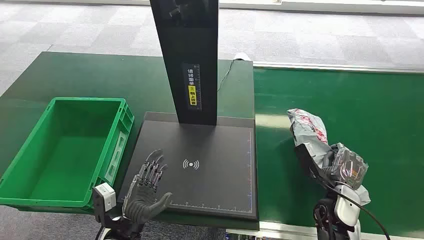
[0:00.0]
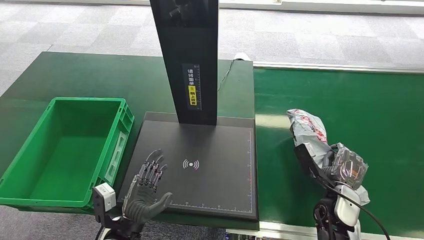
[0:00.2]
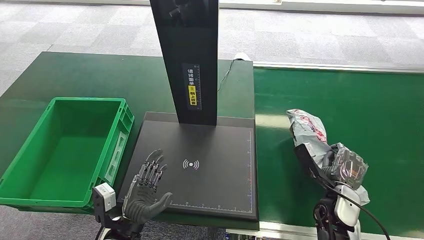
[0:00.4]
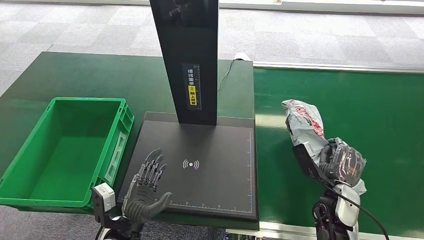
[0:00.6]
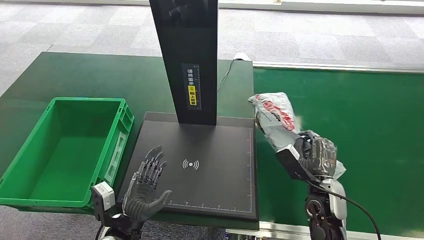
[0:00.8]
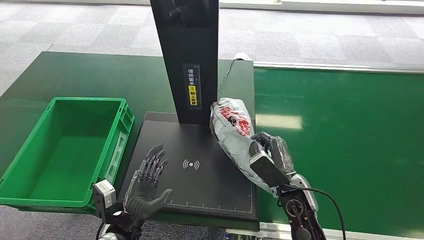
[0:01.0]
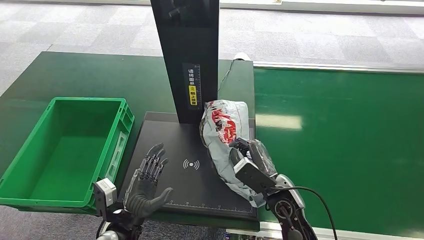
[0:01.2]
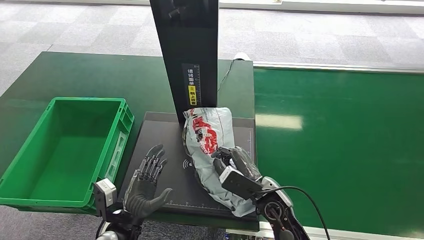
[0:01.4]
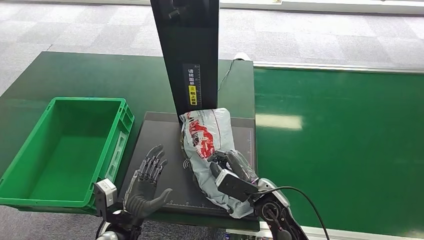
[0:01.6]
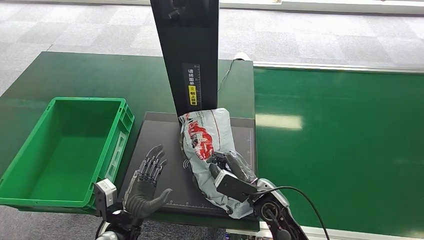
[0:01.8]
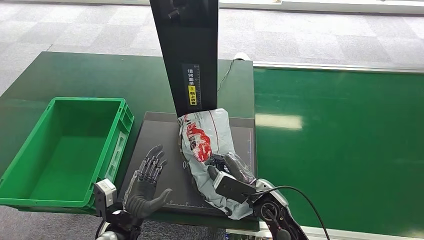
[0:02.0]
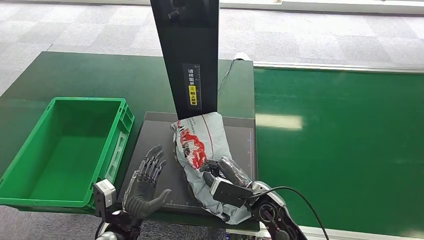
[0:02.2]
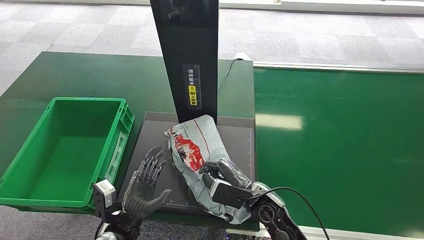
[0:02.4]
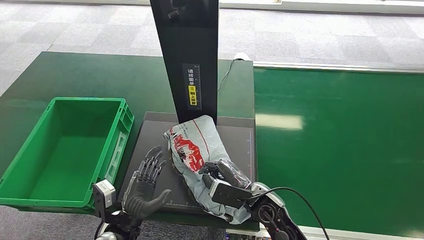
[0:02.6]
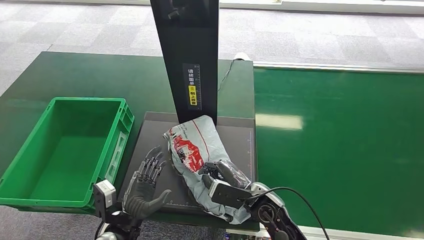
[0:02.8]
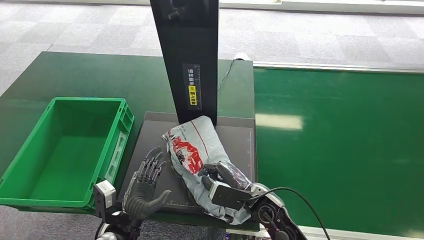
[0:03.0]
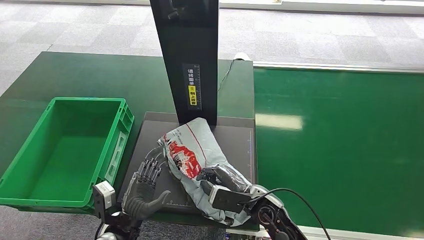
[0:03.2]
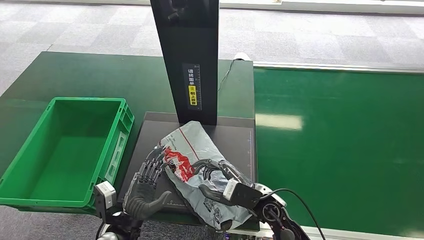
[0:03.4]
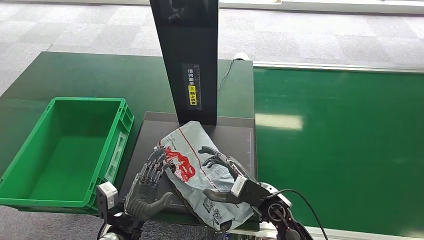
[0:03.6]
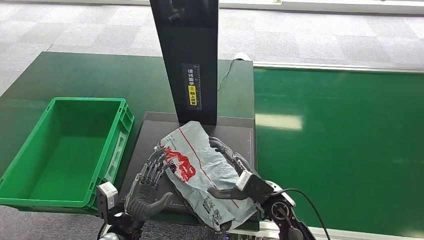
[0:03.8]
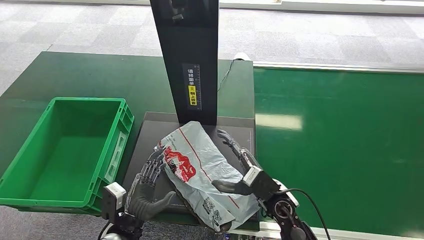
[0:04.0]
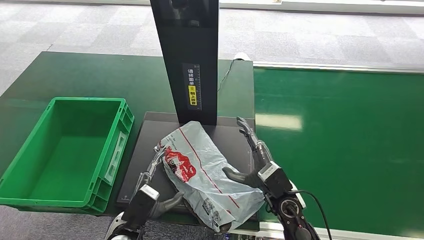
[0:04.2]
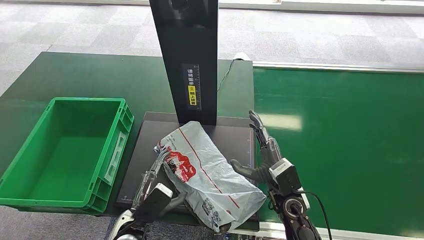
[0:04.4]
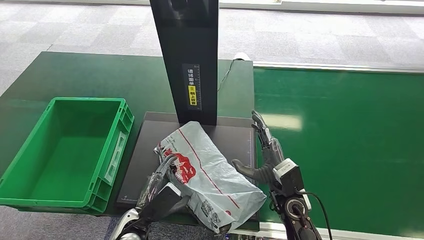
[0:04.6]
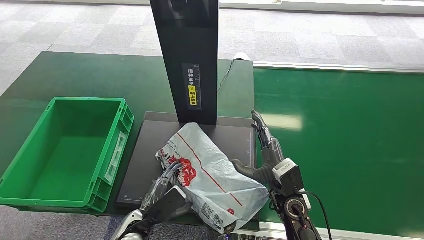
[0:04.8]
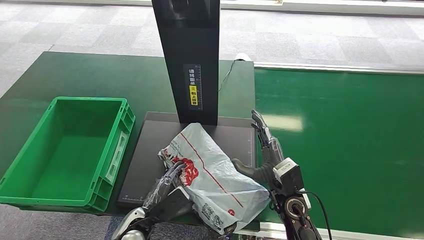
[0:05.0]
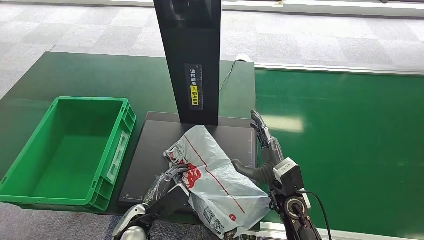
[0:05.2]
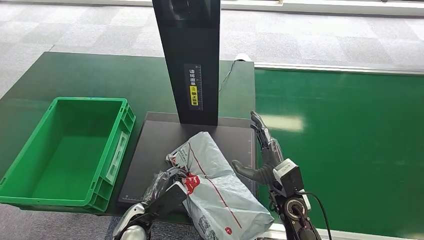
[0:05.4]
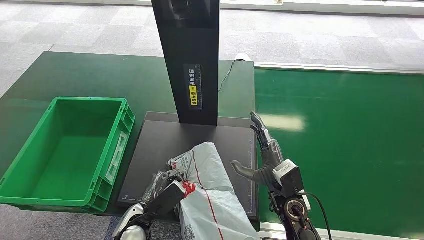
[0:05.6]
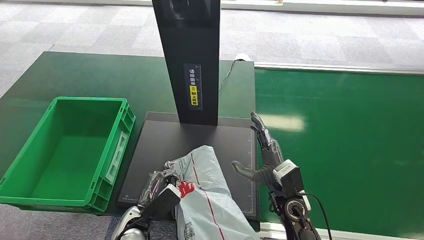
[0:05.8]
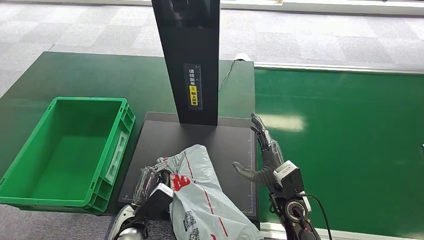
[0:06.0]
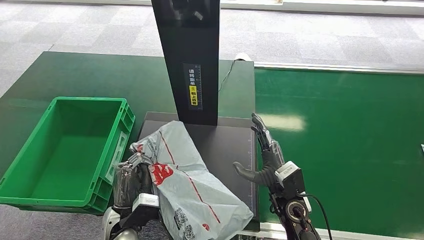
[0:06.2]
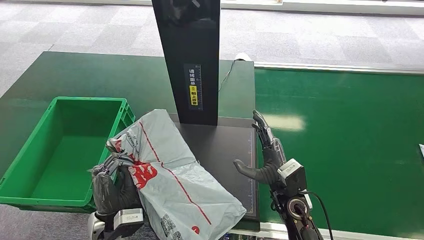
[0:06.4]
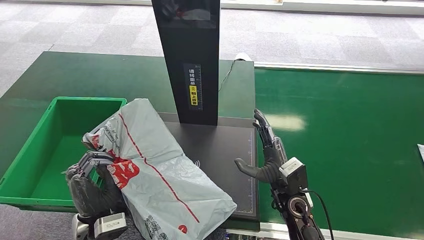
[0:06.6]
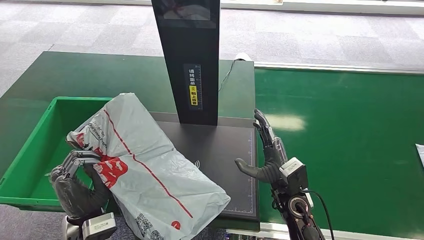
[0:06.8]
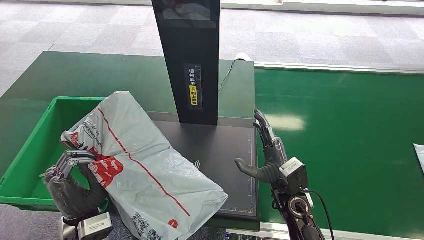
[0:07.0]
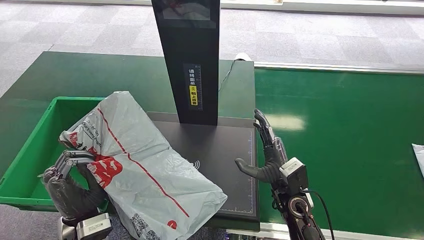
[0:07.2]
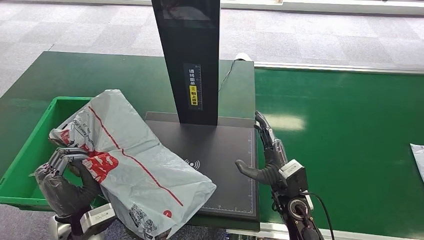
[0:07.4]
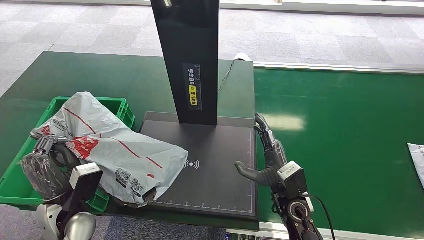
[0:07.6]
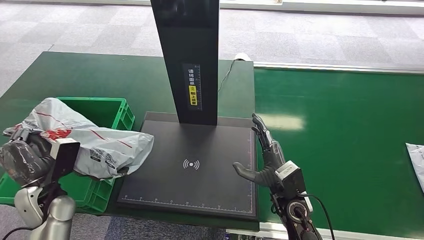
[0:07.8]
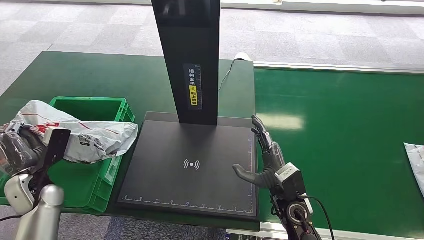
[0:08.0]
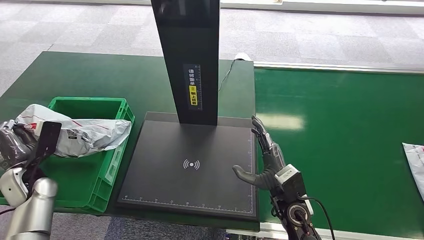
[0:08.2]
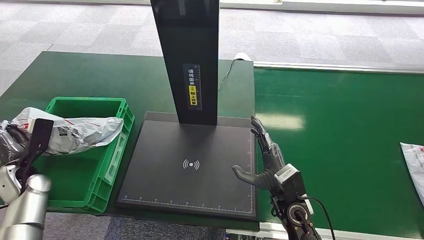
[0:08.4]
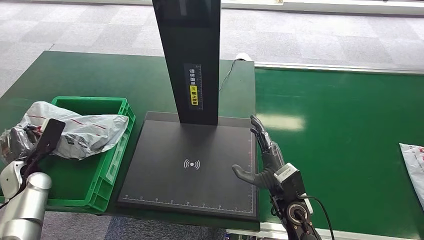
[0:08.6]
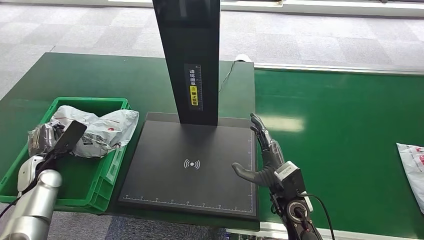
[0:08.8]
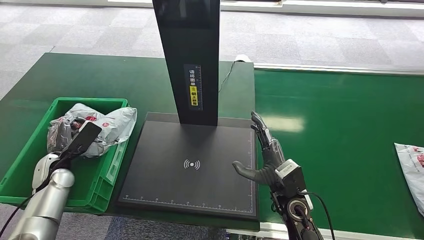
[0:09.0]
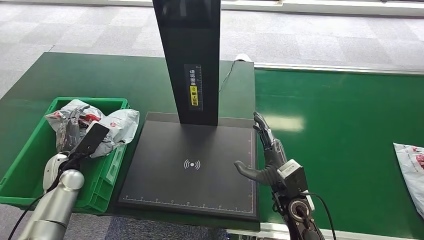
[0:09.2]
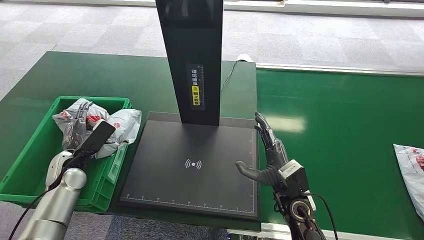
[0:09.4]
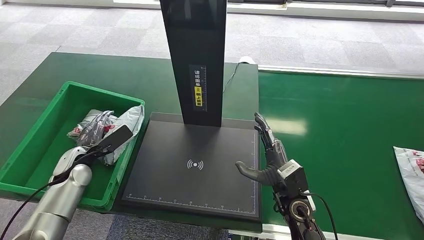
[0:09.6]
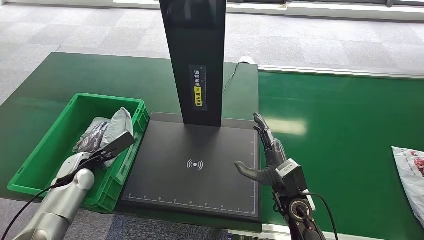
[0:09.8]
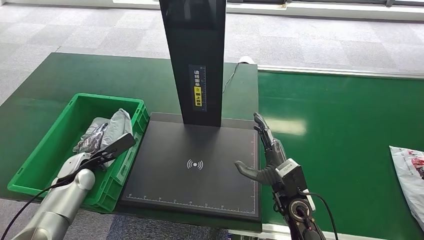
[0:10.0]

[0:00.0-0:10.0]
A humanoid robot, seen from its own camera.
Step, 0:03.0 to 0:03.4: Place the package onto the inbound machine.
Step, 0:09.8 to 0:10.0: Place the package into the parcel locker.
0:01.4 to 0:02.8: There are only small adjustments of the hands.
